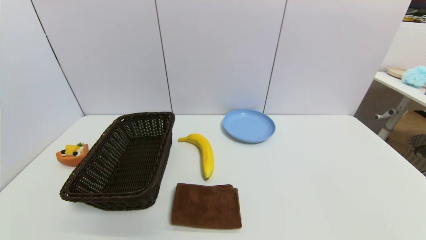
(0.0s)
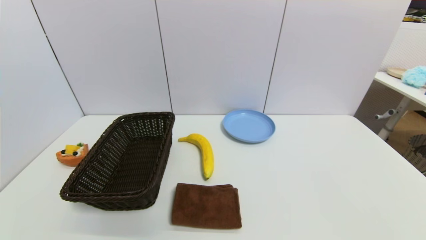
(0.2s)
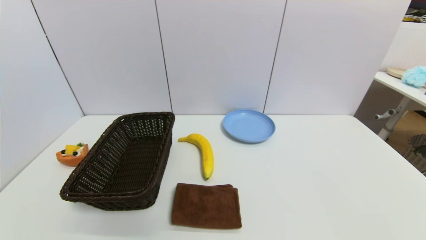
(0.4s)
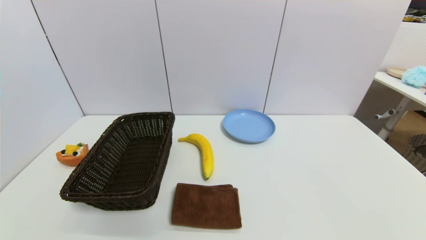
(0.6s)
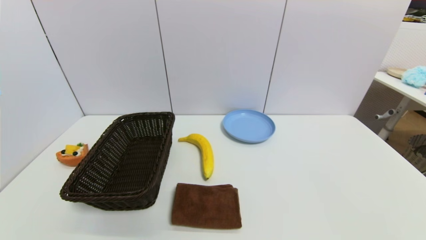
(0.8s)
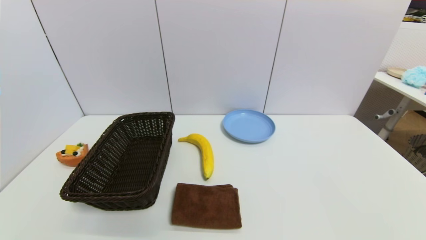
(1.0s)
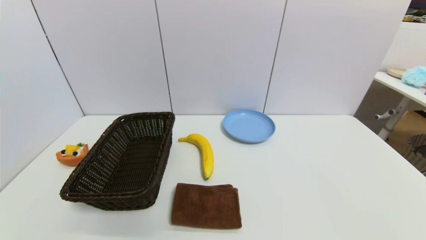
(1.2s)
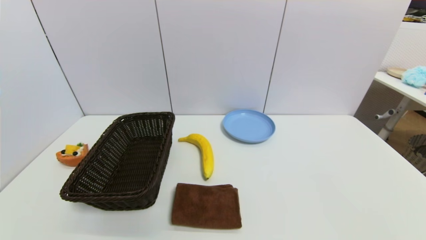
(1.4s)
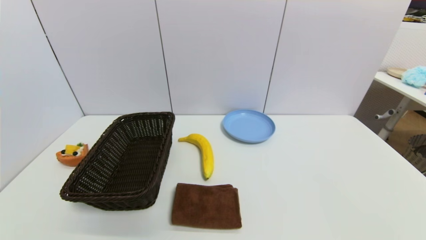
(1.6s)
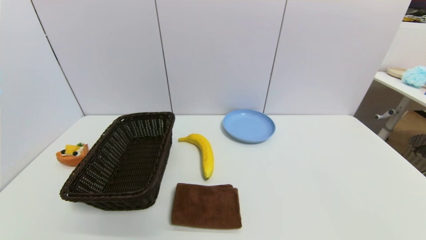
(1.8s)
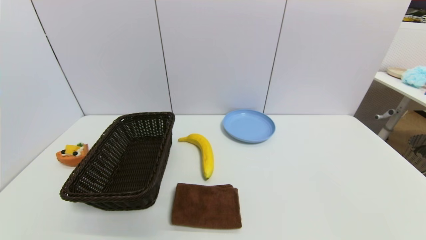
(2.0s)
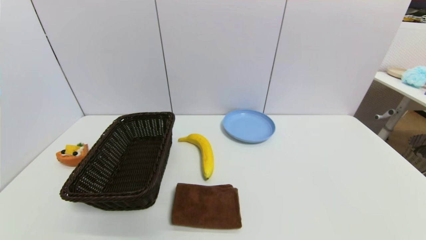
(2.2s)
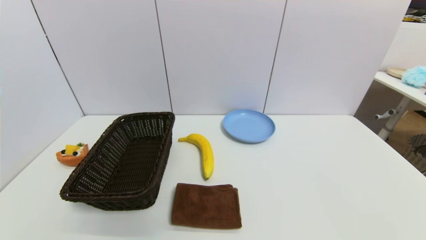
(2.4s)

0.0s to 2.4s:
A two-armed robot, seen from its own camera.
1.2s to 2.4s: Both grippers stay put.
